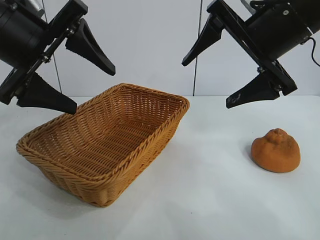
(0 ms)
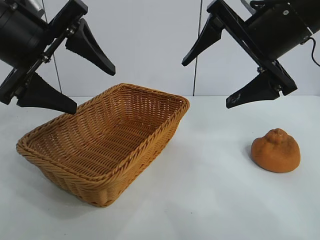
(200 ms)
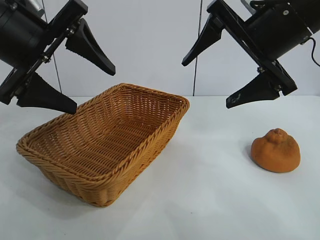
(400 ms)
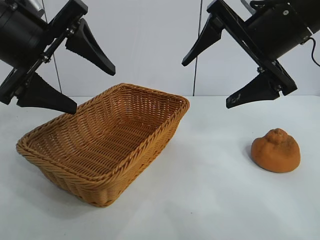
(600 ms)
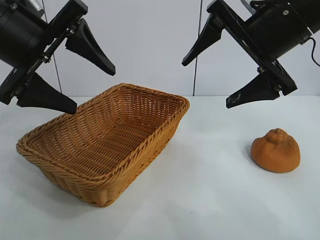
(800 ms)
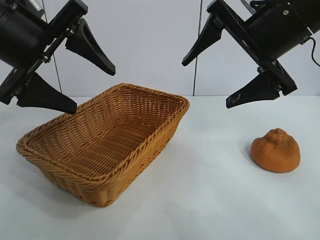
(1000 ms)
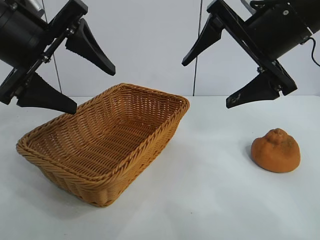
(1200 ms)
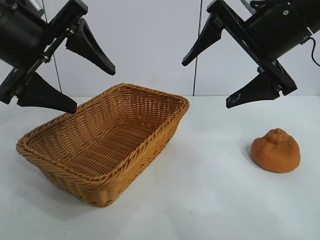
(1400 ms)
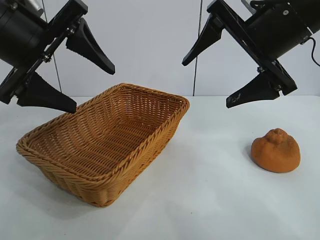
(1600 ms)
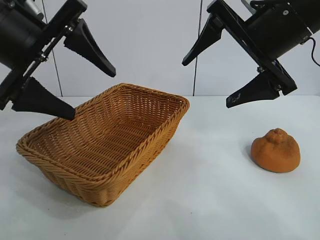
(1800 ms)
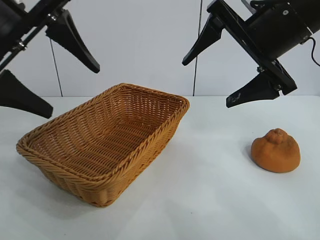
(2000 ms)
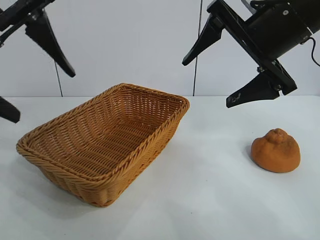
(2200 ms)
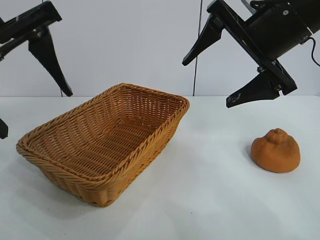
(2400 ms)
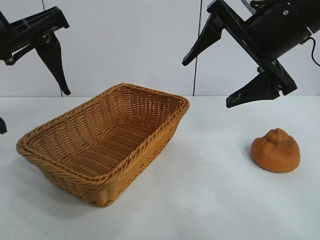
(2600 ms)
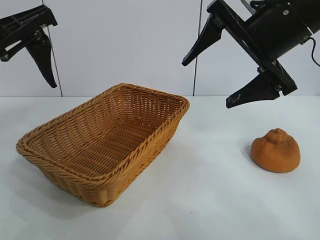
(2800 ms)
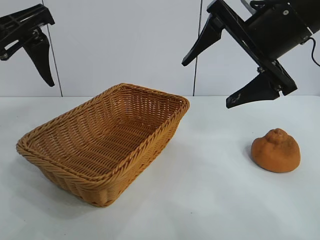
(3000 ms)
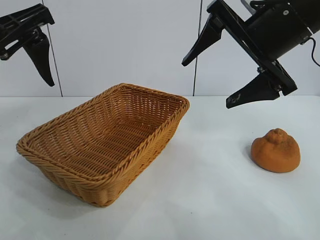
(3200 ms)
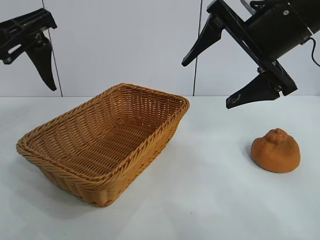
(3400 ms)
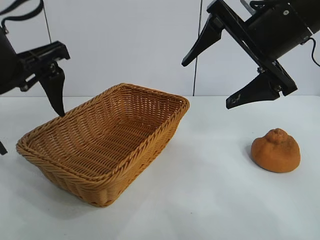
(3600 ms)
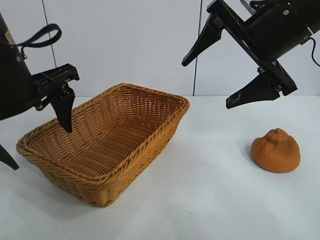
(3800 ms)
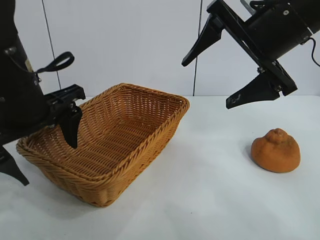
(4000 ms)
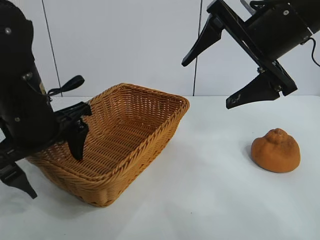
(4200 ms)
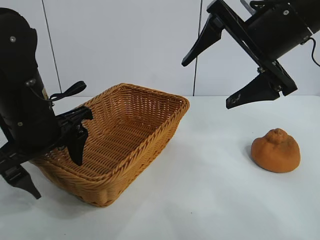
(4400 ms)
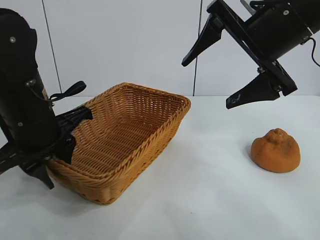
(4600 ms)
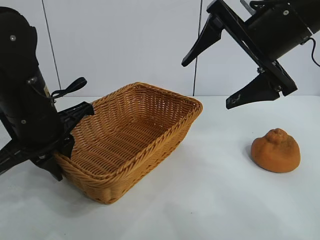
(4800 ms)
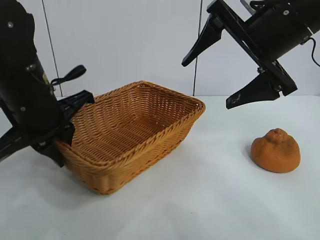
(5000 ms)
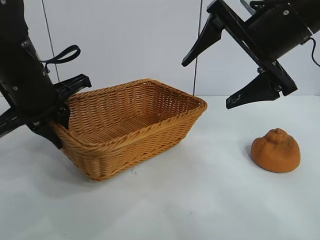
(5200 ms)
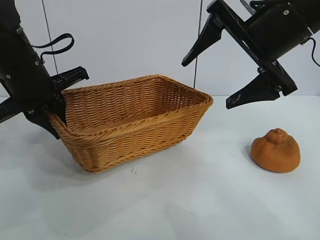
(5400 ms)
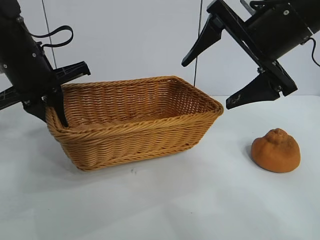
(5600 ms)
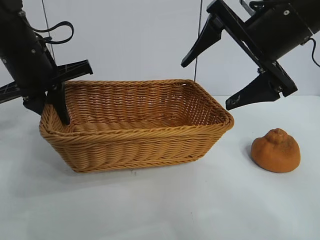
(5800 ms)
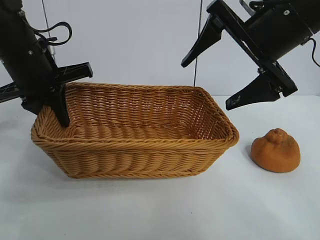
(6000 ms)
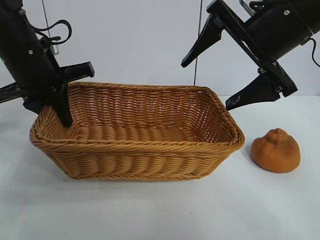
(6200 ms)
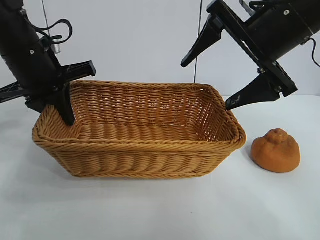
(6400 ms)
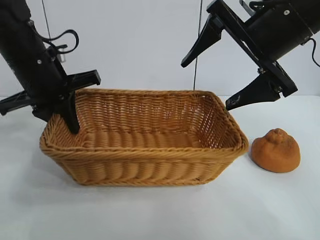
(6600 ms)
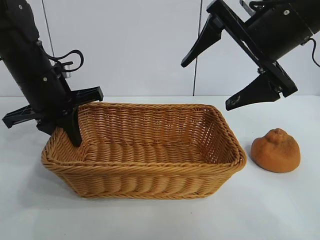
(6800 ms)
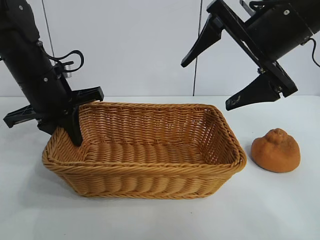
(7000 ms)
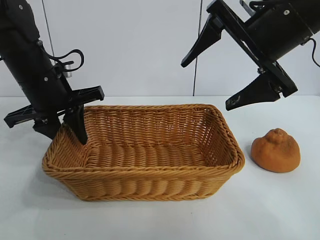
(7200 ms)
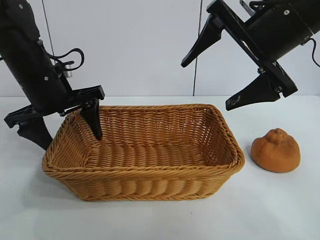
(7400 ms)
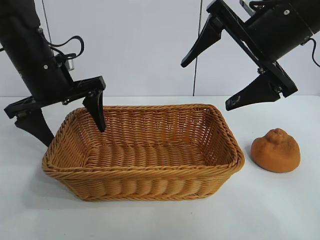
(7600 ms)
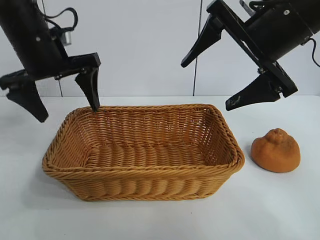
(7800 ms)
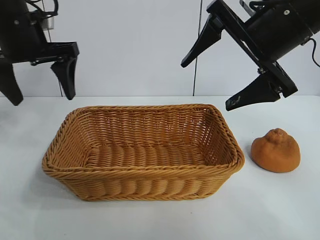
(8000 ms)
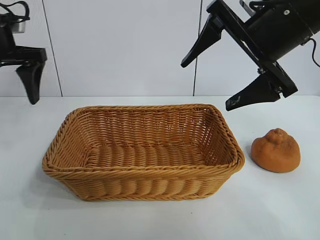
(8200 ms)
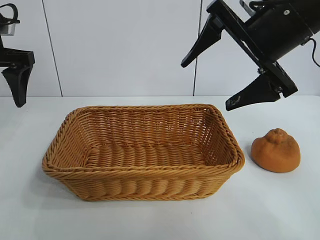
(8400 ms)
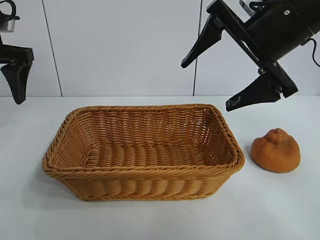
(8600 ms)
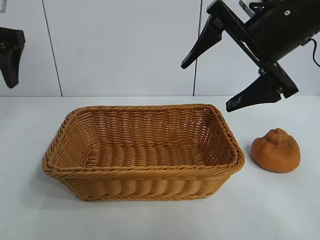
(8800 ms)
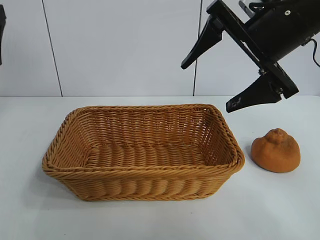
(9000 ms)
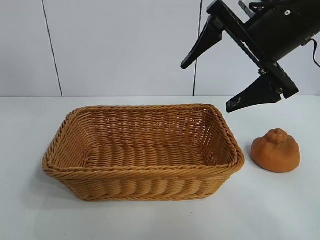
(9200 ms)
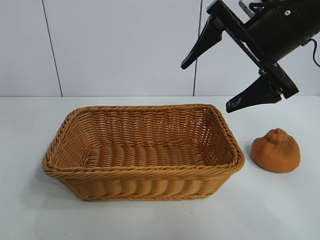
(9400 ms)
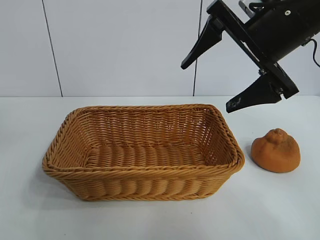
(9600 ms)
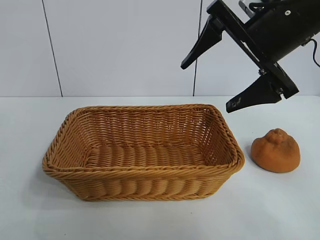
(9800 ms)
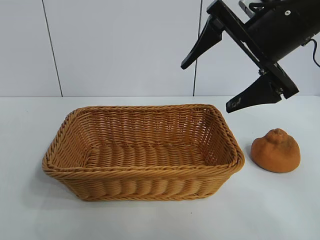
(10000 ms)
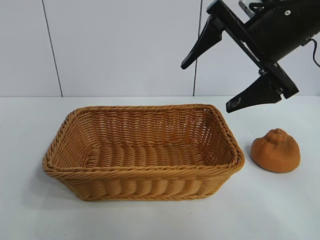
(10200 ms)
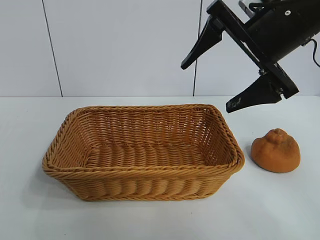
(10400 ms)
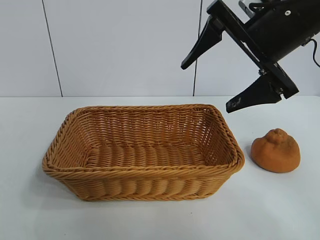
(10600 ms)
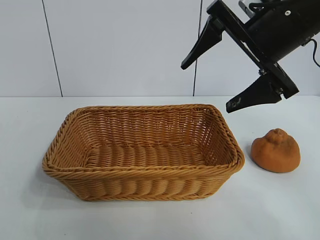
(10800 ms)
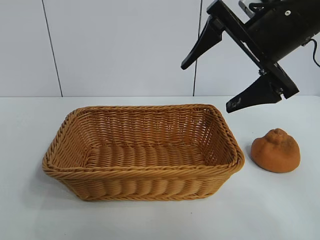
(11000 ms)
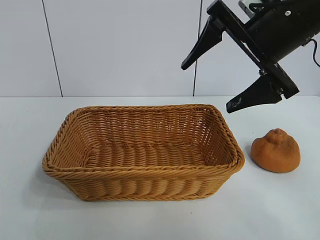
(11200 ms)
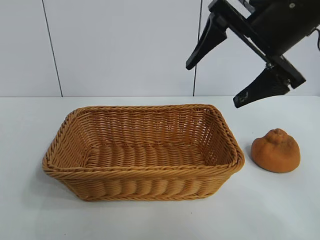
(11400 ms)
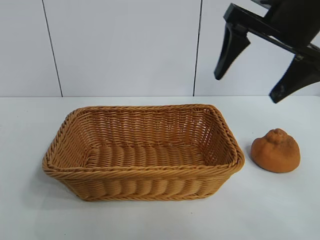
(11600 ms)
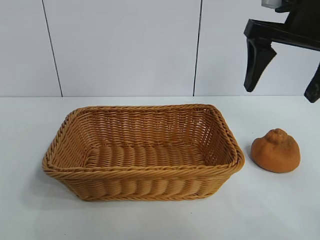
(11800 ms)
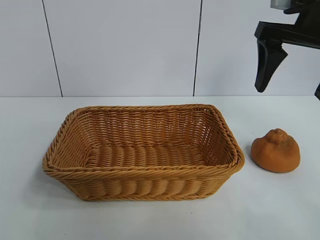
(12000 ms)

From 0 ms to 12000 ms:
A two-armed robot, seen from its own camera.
Task of the whole recording: pick up the orange and put it into the basket.
Step, from 1600 ms to 4600 ms: Grasp the basket with left gripper.
Step, from 4800 ms to 7400 ms: Place the basket in the center of view with left gripper.

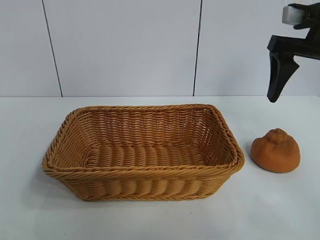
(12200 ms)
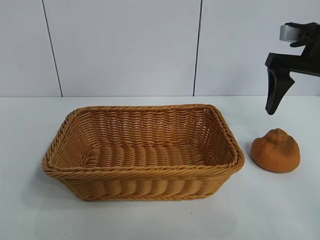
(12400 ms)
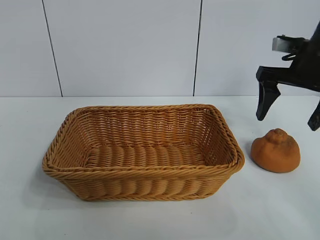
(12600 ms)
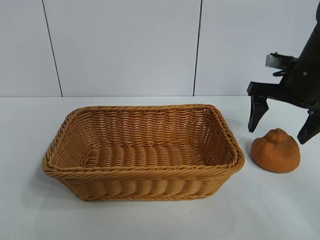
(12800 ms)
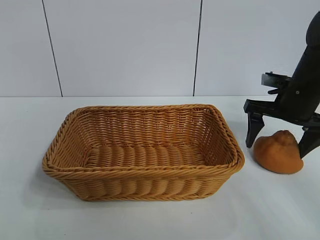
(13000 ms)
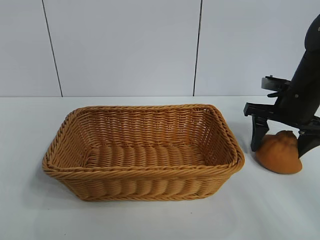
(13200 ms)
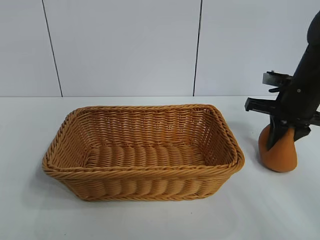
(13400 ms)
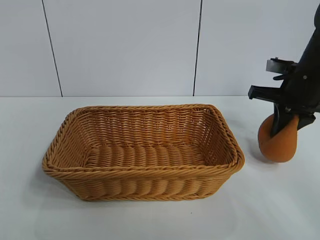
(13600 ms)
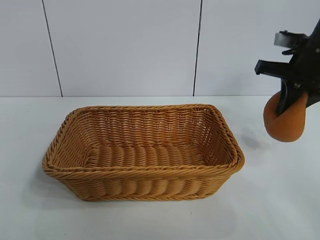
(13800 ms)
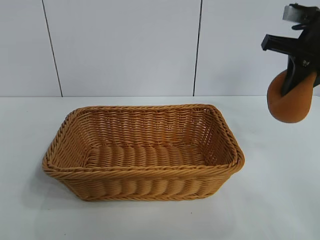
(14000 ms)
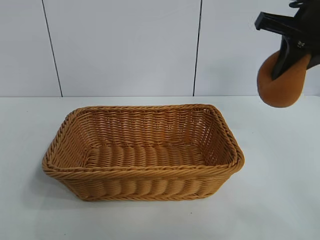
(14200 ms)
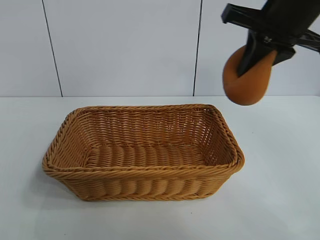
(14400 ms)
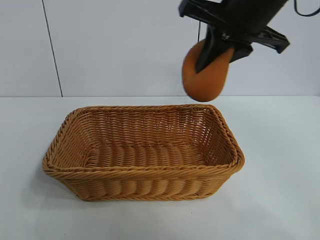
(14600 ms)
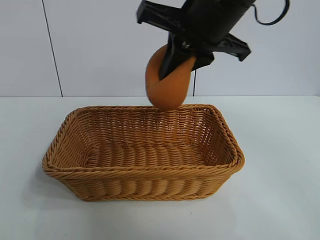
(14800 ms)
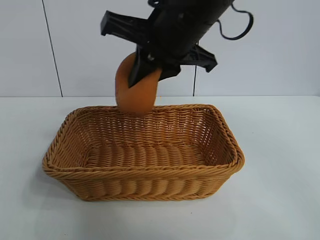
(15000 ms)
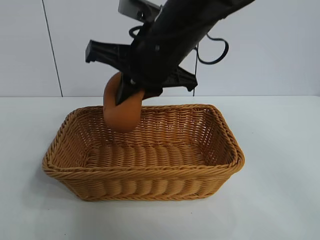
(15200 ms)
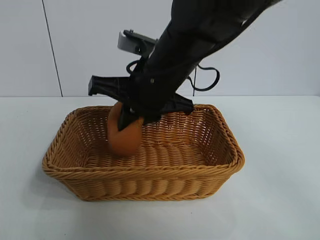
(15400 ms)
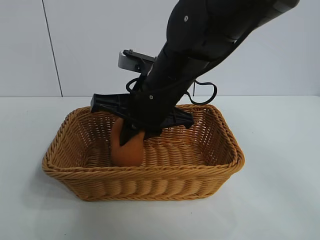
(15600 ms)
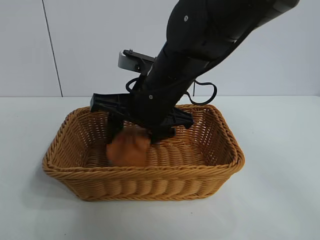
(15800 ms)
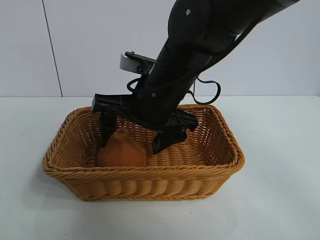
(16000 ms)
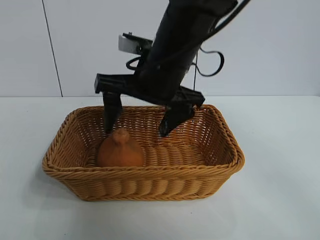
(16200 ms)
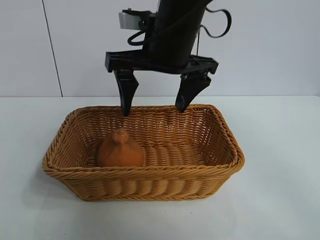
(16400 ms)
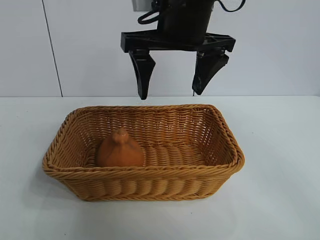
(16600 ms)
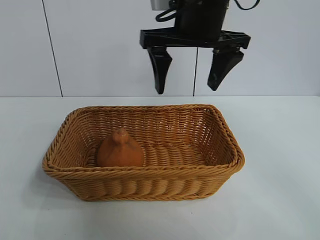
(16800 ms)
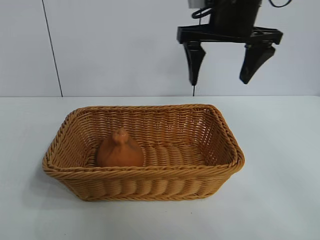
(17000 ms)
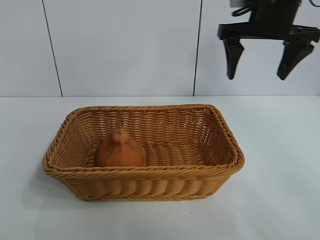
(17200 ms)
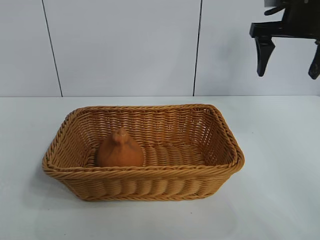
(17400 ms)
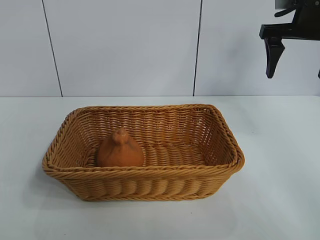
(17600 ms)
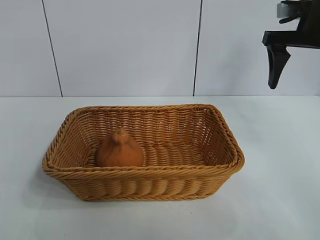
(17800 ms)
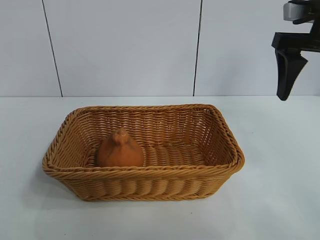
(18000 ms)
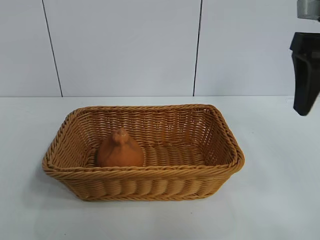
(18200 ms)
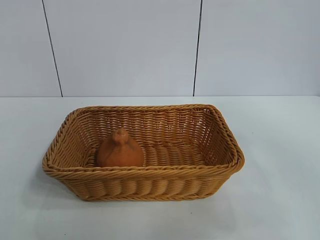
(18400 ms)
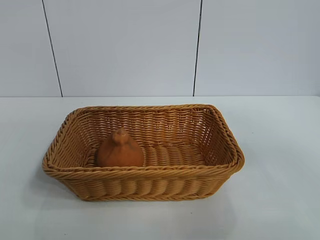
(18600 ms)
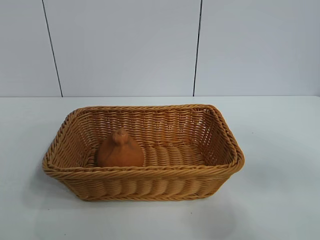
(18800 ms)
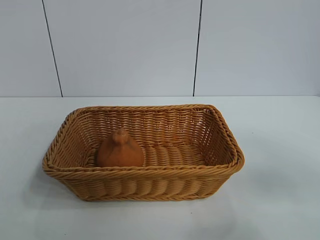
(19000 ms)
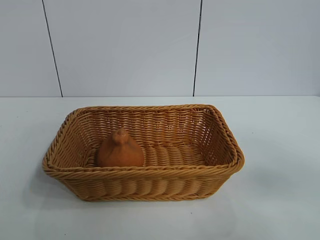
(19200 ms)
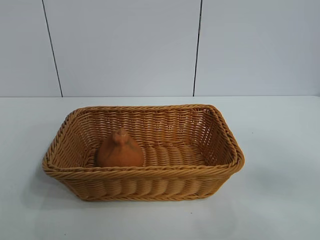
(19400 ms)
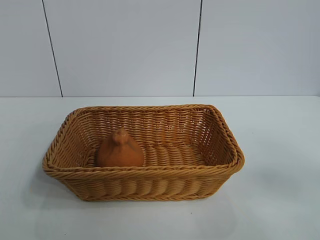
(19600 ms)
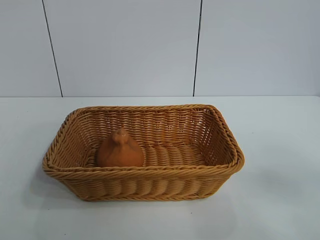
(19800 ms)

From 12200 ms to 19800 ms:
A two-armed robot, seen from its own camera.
Task of the whole recording: pick up the orange and put it into the basket.
Step, from 13800 ms to 16000 ms: Place the orange in the basket with right gripper.

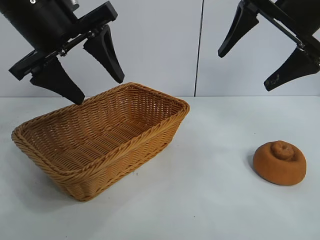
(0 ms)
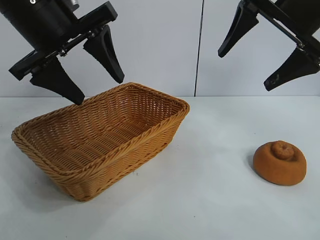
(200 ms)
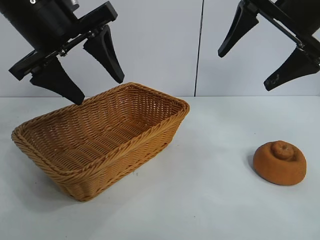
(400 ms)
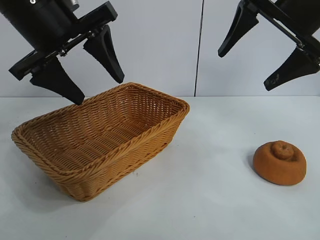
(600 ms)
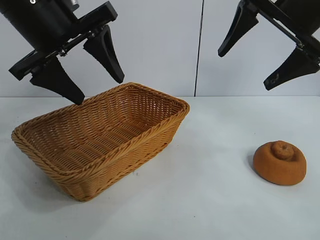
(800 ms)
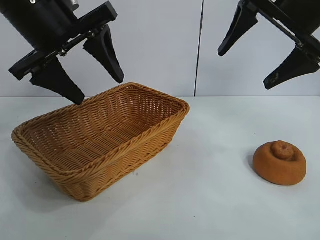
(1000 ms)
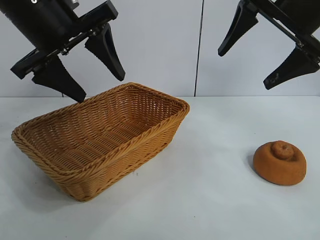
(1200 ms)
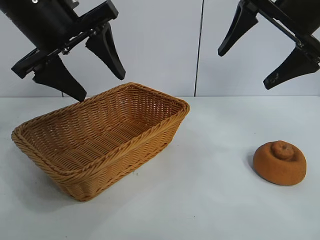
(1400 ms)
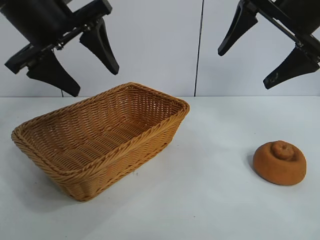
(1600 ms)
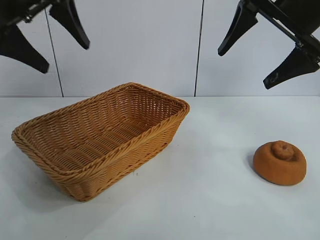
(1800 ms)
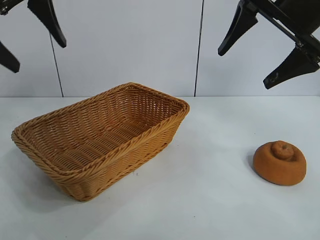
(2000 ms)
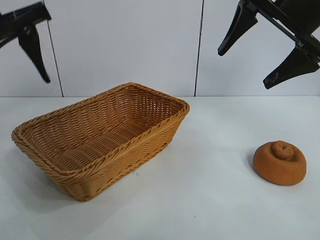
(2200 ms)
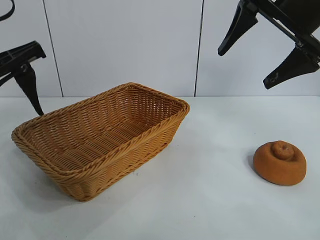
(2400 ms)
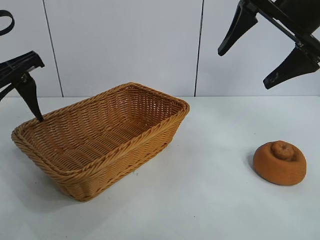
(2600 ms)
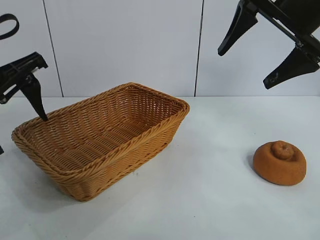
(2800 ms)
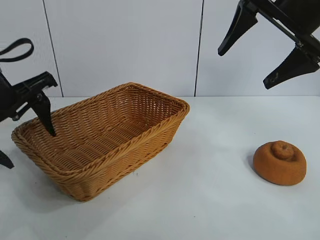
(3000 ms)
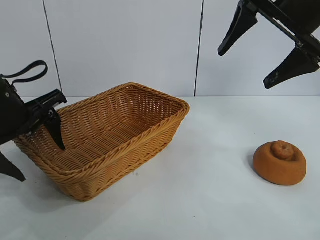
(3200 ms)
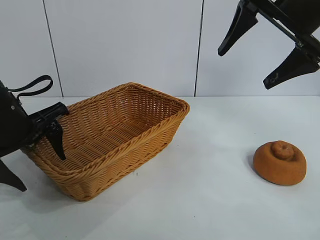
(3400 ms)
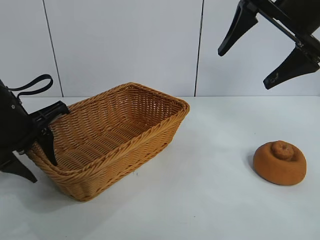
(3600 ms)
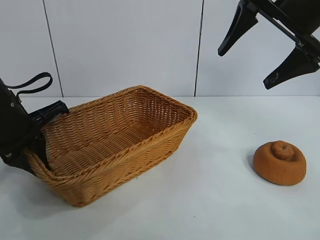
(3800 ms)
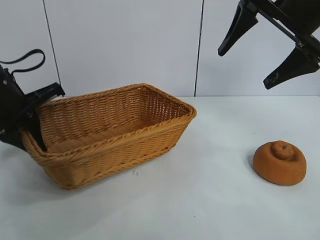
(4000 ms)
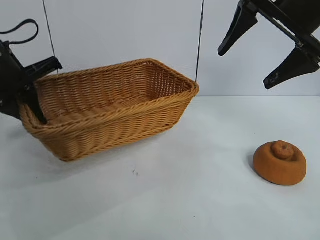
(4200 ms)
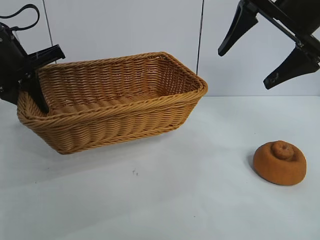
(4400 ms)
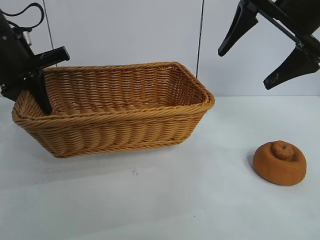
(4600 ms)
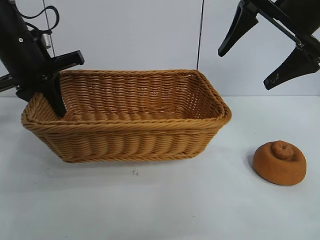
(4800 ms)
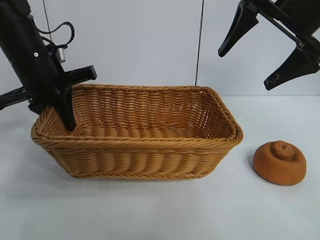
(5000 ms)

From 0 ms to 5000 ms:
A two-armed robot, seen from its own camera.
Task of the whole recording: pick up the orange and put it into the basket.
Step, from 600 ms to 3800 ms: Grasp the basket with left gripper.
